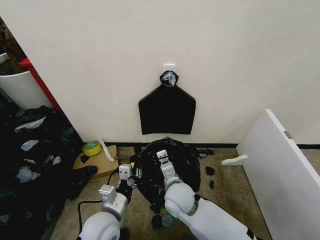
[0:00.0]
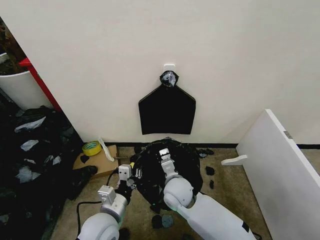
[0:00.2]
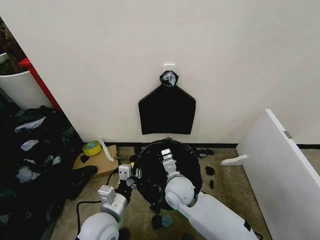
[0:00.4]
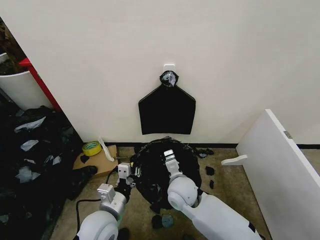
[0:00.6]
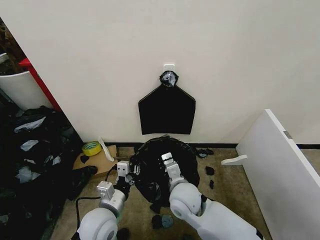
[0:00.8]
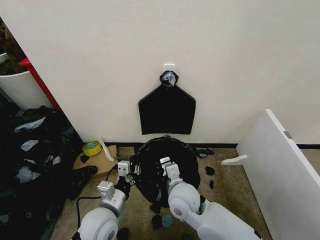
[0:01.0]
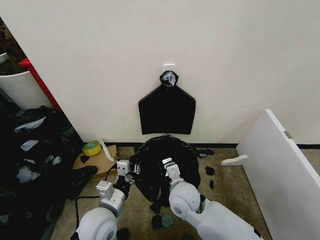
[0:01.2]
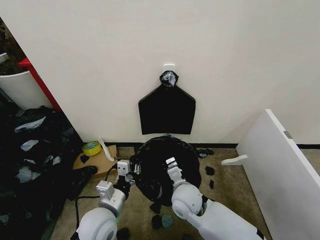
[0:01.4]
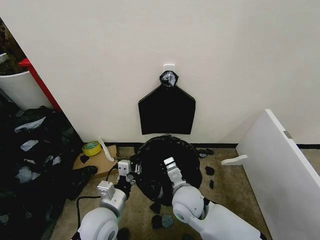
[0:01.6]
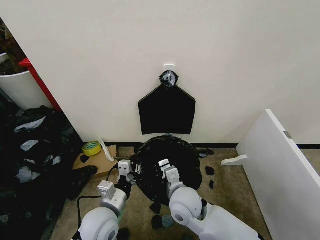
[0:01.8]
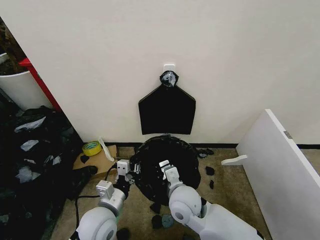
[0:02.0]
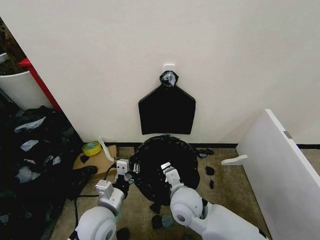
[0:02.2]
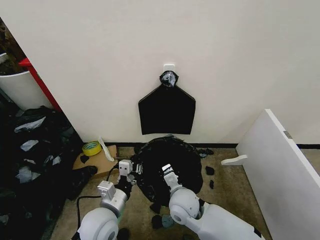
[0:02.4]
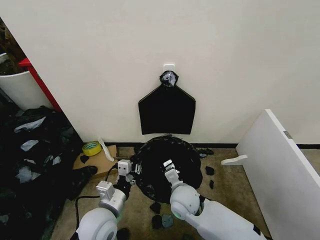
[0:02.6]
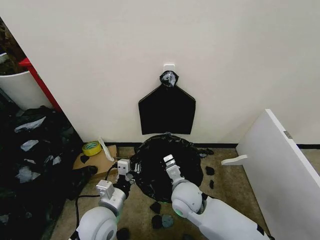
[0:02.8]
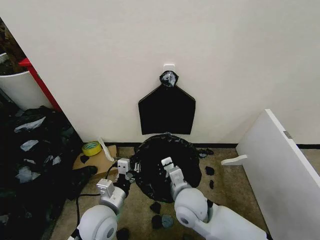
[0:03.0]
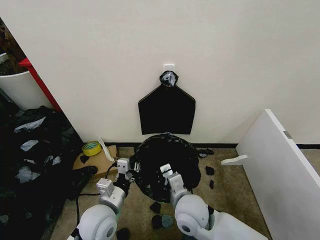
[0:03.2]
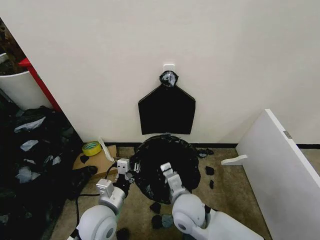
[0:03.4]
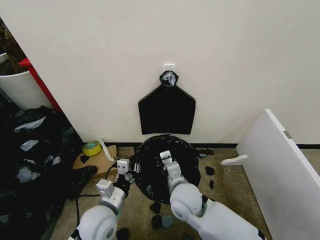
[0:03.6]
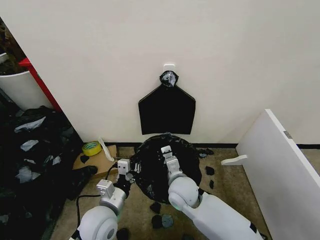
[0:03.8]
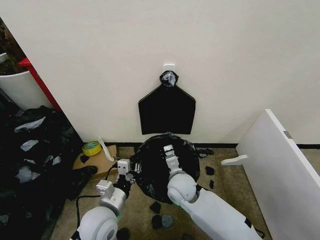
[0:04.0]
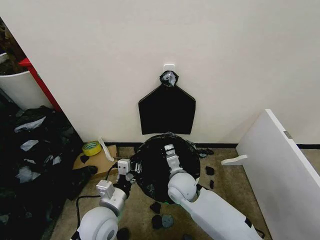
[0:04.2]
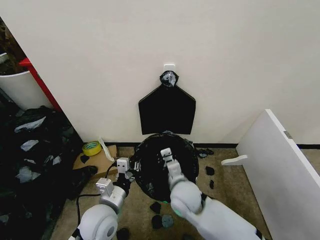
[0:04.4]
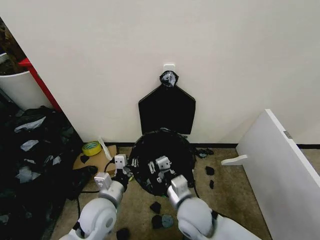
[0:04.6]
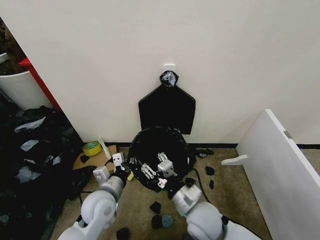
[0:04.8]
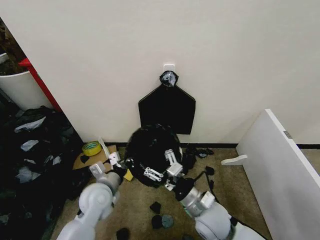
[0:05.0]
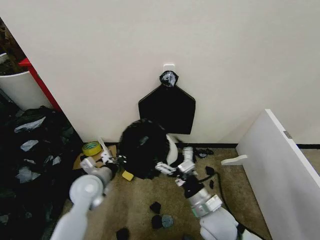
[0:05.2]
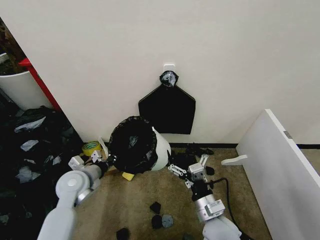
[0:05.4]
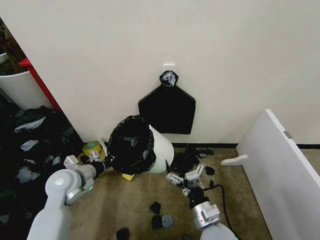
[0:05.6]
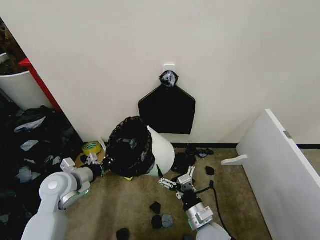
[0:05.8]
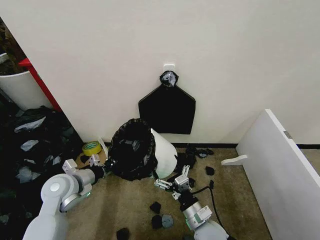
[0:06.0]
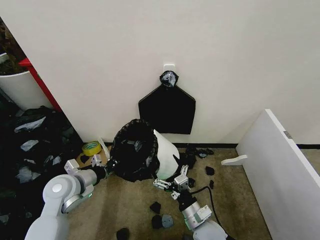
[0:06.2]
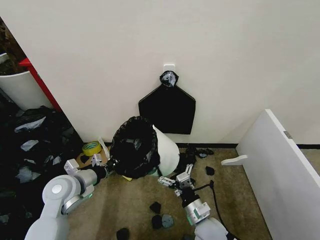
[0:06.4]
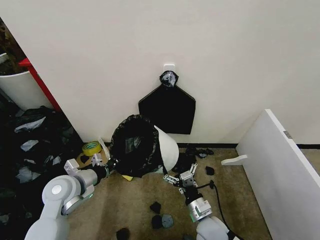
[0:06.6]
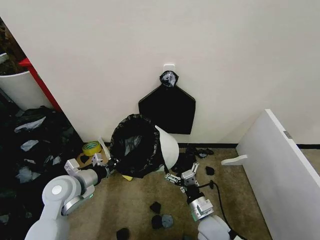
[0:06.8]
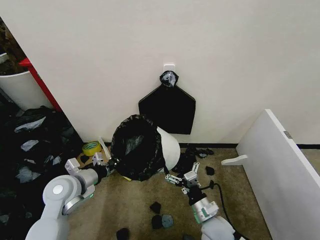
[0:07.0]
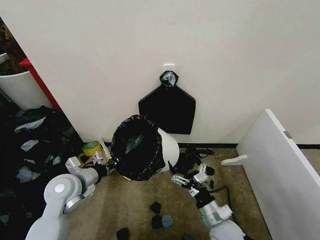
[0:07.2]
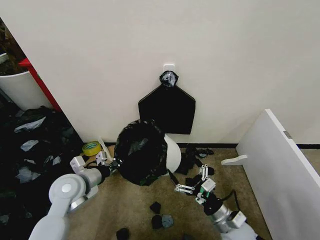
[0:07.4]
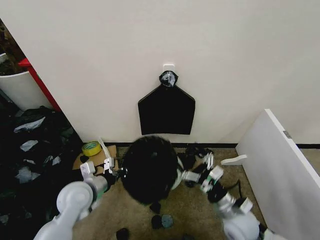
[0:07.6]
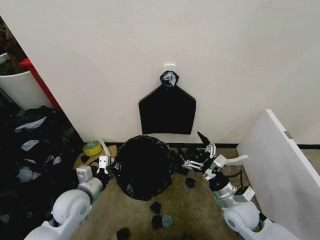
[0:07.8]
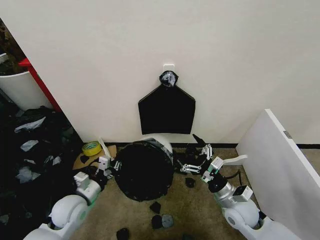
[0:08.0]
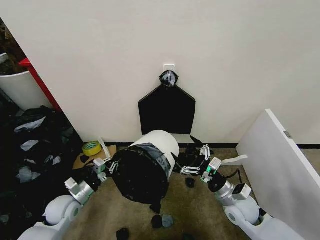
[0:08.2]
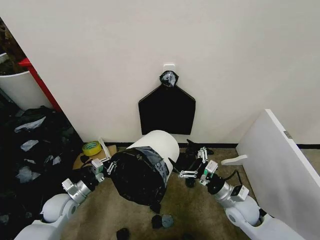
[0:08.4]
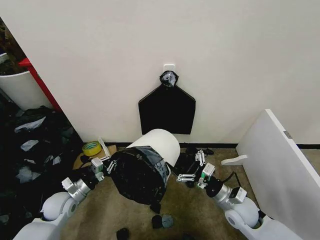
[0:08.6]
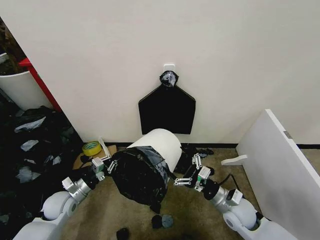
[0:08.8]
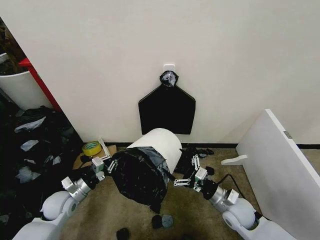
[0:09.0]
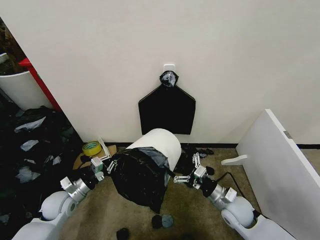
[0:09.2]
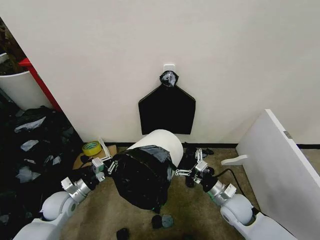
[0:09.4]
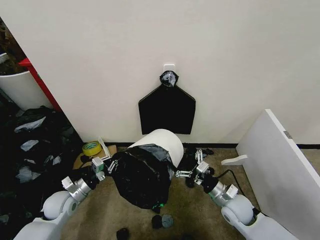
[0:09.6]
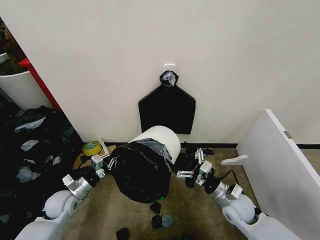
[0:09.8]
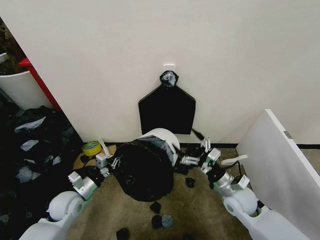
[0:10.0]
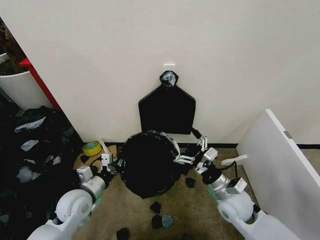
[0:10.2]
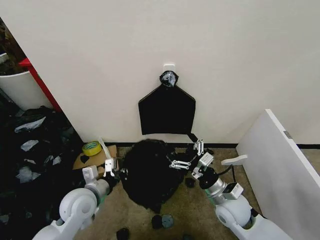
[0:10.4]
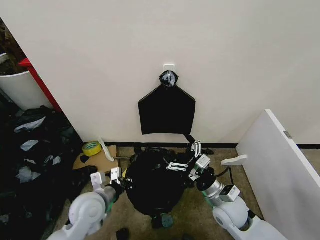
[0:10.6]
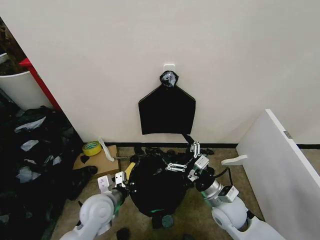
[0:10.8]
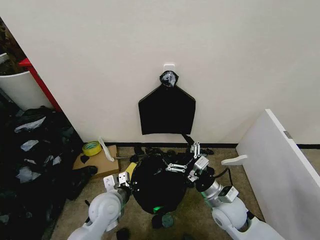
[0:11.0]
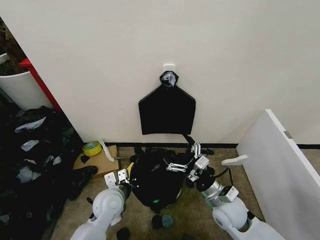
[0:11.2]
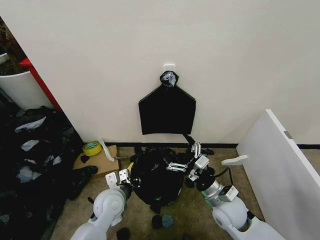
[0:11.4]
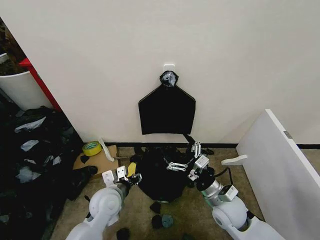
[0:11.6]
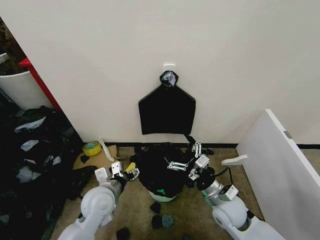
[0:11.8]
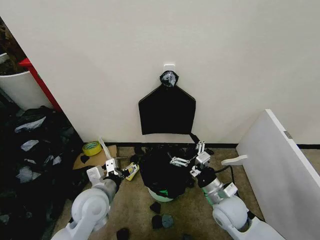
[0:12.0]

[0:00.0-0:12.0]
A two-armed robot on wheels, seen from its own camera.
Task of the whole recording: Place the garbage bag over the trash bin.
0:01.6 to 0:03.0: The grippers move only a little.
0:03.0 to 0:04.4: The right gripper moves about 5 cm forward and comes back.
0:04.4 to 0:06.0: The right gripper is displaced backward, to the right and downward by about 15 cm, and opens, while the left gripper moves to the left and forward, roughly 15 cm.
0:06.0 to 0:07.6: The left gripper changes place by roughly 5 cm, while the right gripper moves to the right, approximately 10 cm.
0:07.6 to 0:09.0: The left gripper shifts some 15 cm downward and to the left.
0:09.0 to 0:10.4: The left gripper moves to the right and upward, roughly 15 cm; the right gripper shifts roughly 5 cm upward.
0:10.4 to 0:12.0: The left gripper goes downward and returns, roughly 5 cm each way, and opens.

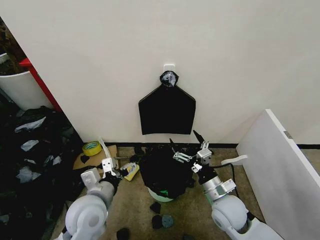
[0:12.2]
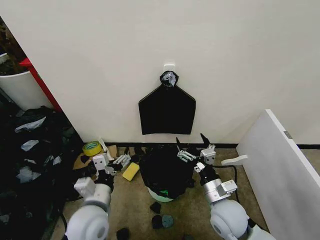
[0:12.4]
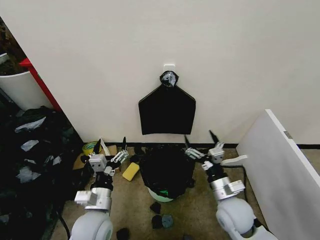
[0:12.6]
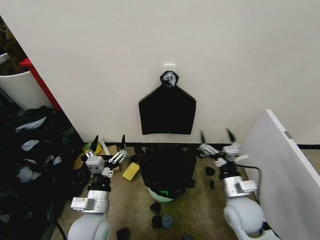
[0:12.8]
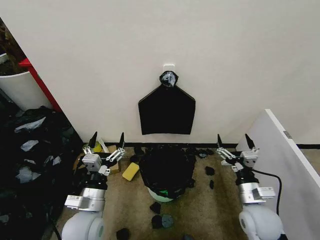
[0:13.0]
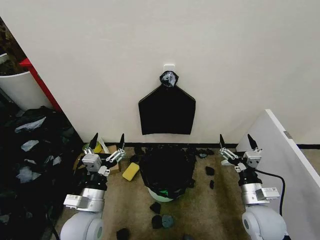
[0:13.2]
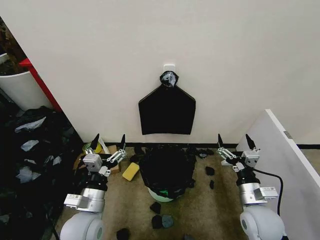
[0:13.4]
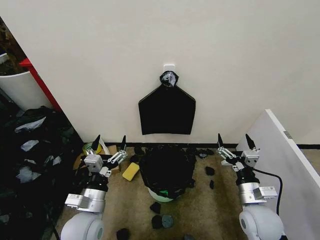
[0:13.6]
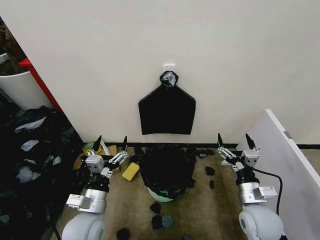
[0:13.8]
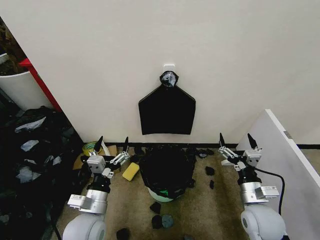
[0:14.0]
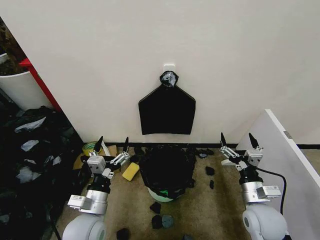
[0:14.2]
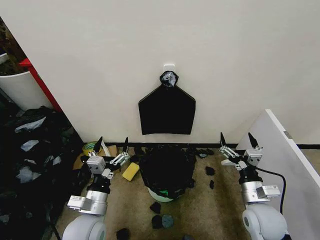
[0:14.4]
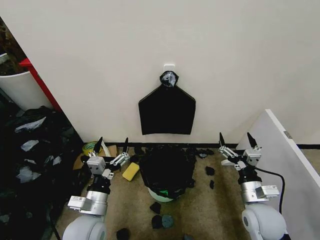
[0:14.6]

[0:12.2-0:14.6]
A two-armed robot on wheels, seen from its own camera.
Task of the whole recording: Place the garbage bag over the trash bin.
0:12.2 to 0:13.4: The left gripper ends up about 5 cm from where it was. The right gripper moves to the right, approximately 10 cm.
0:13.4 to 0:14.6: Neither gripper changes place.

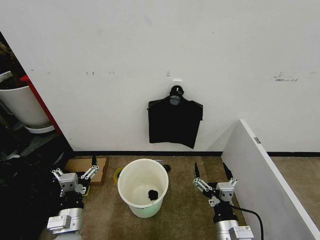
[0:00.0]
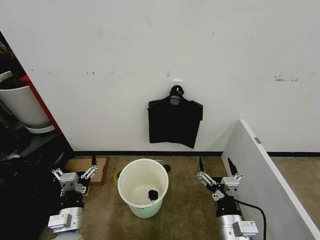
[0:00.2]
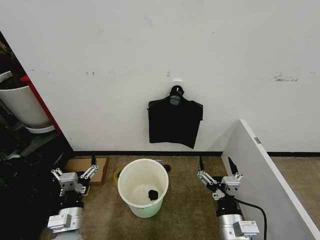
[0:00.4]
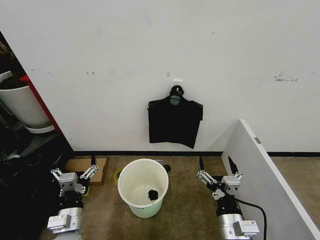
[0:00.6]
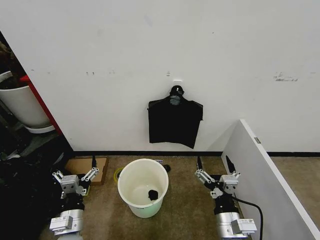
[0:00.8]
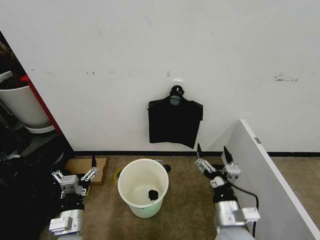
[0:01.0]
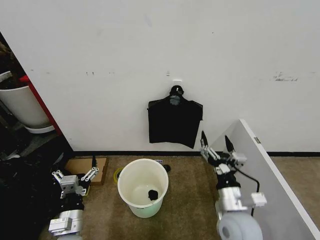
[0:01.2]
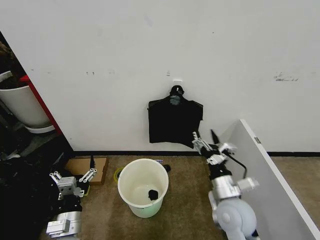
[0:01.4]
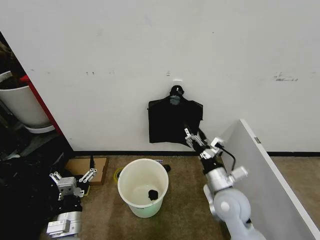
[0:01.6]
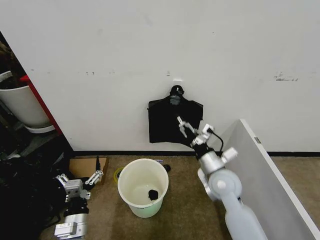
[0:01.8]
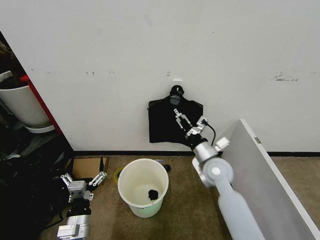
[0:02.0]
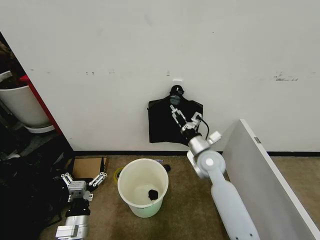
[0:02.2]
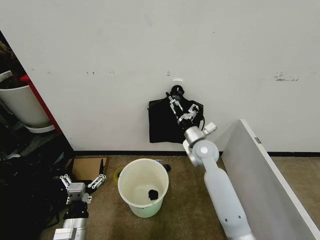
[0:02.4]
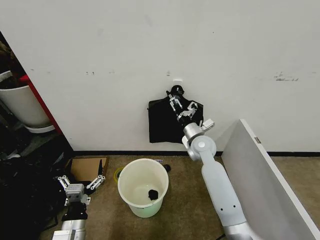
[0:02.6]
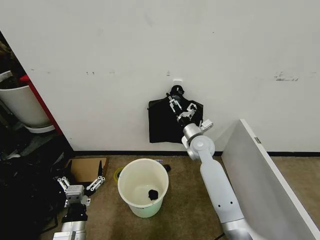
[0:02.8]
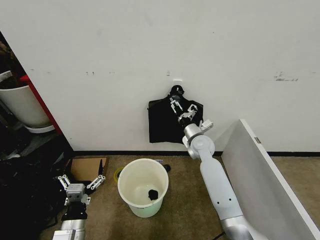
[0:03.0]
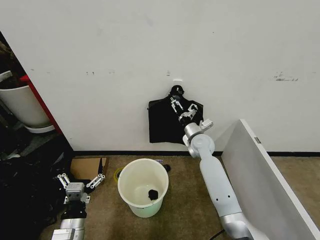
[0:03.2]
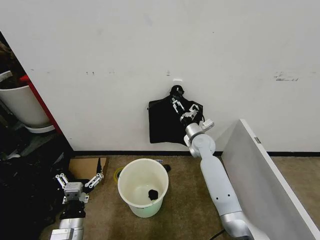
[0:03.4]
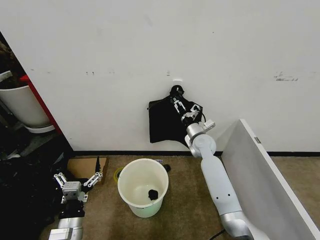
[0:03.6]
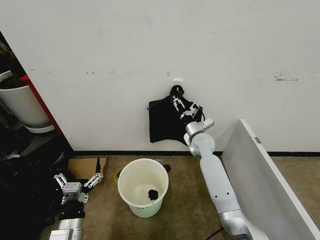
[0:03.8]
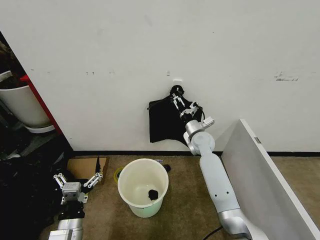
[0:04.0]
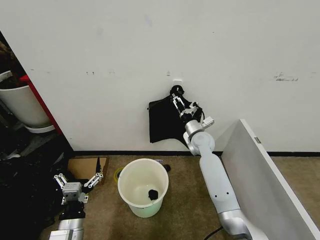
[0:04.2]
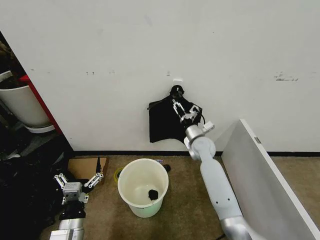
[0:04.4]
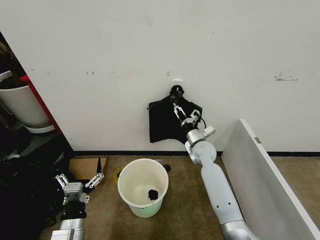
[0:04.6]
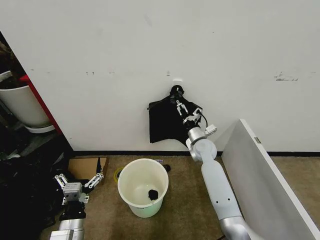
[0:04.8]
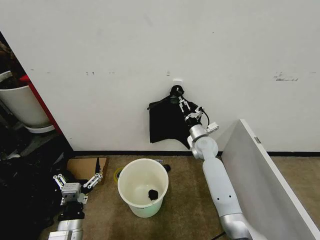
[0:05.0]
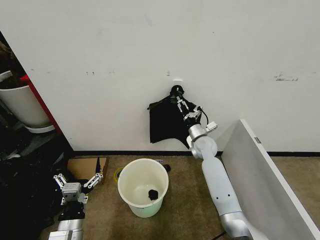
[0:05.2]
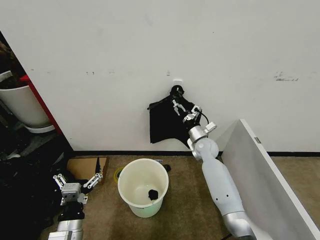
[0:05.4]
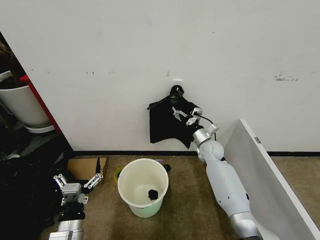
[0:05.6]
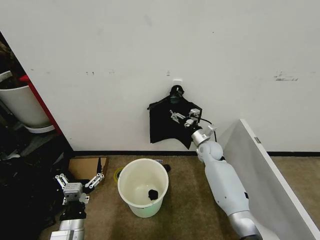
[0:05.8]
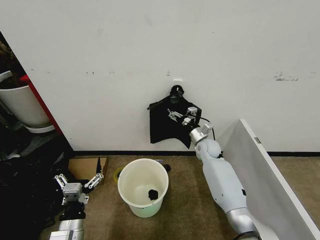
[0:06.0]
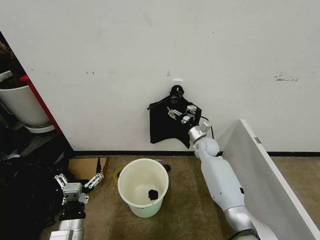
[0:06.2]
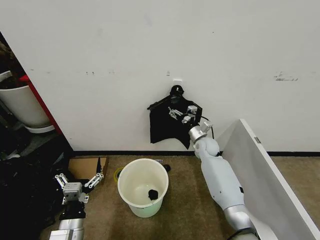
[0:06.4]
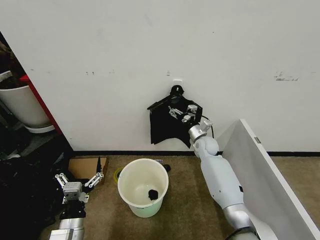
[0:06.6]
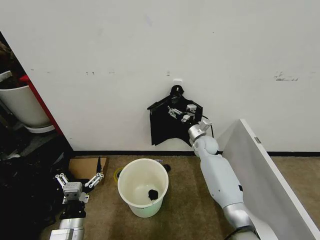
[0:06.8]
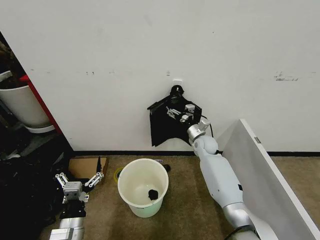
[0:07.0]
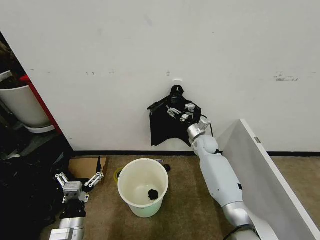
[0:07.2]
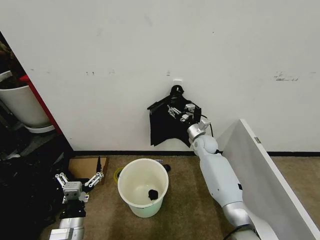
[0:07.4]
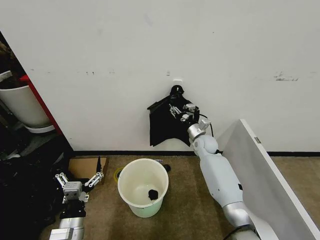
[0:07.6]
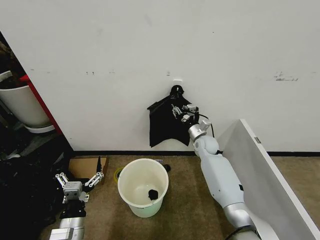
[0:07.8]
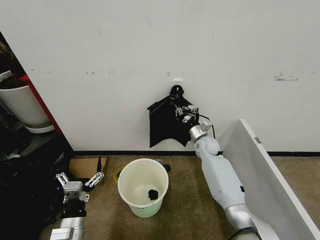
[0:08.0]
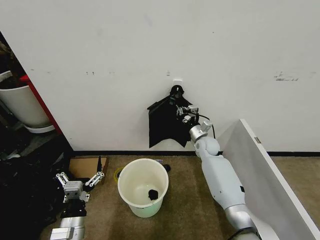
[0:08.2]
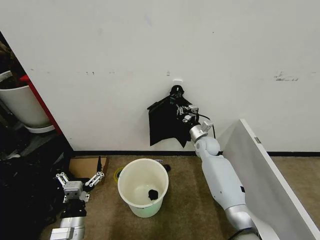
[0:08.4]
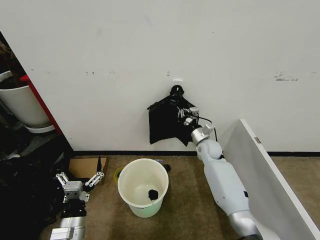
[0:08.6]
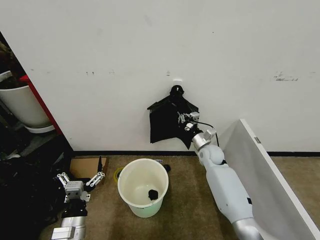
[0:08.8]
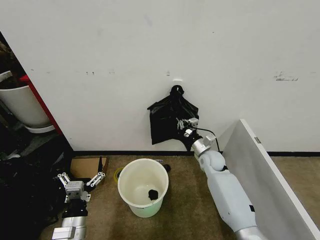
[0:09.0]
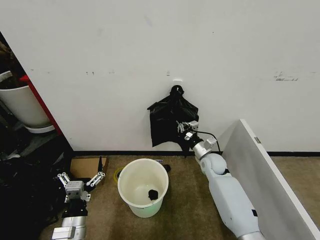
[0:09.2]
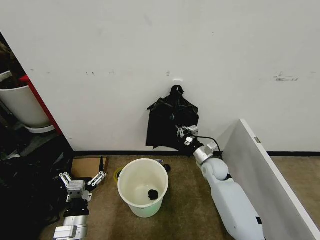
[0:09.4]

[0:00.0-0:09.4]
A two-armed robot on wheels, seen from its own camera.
Task of the whole recording: Place the garbage bag over the trash bin.
0:01.6 to 0:03.2: The right gripper shifts roughly 25 cm forward.
0:03.2 to 0:04.8: The right gripper closes, then reopens.
0:06.2 to 0:07.8: The right gripper closes up.
0:07.8 to 0:09.4: The right gripper travels backward by some 10 cm, and closes up.
